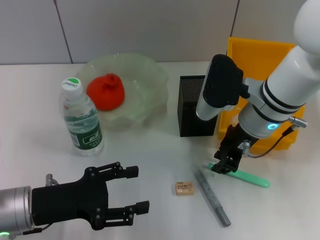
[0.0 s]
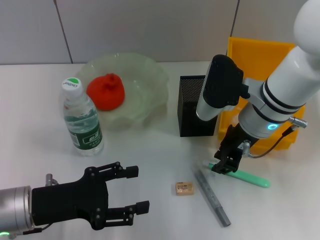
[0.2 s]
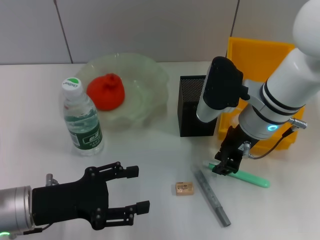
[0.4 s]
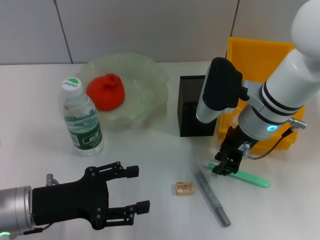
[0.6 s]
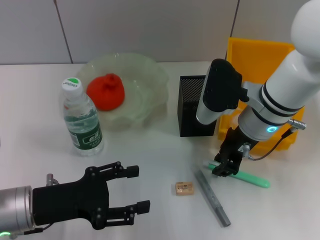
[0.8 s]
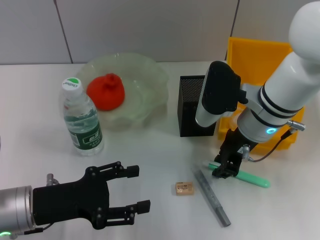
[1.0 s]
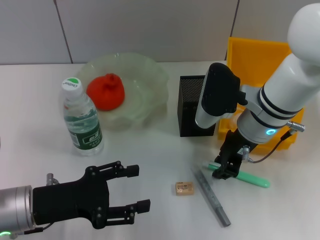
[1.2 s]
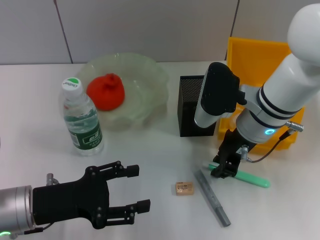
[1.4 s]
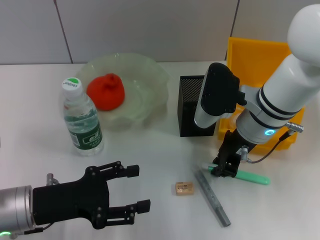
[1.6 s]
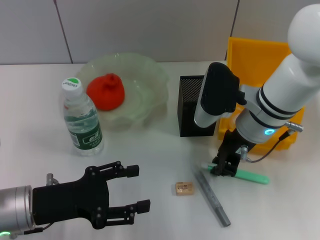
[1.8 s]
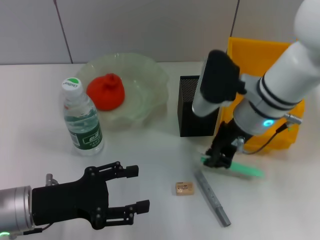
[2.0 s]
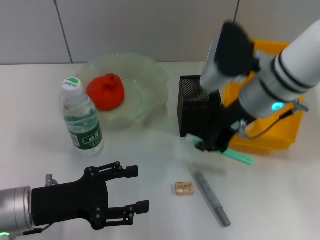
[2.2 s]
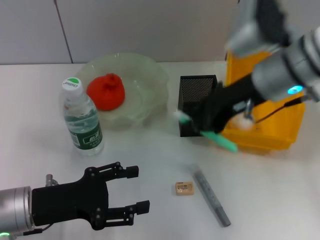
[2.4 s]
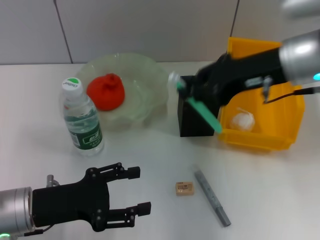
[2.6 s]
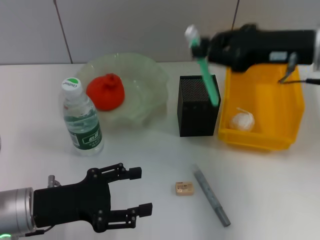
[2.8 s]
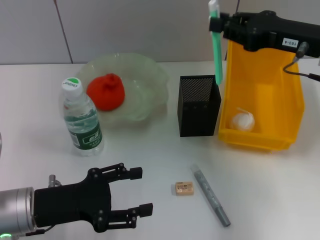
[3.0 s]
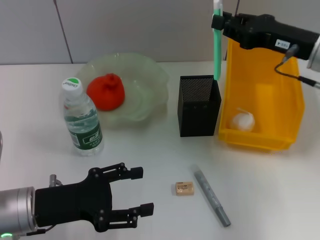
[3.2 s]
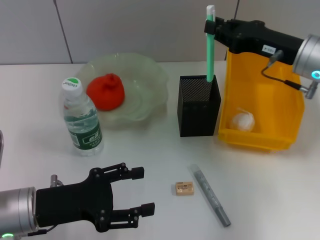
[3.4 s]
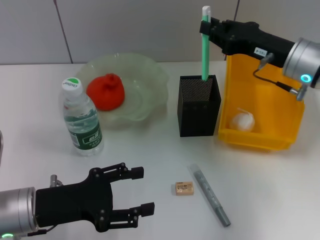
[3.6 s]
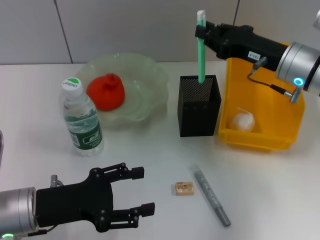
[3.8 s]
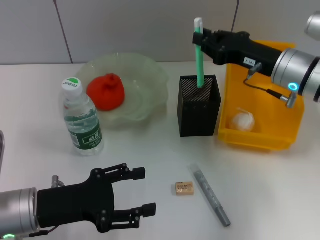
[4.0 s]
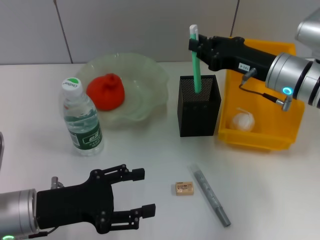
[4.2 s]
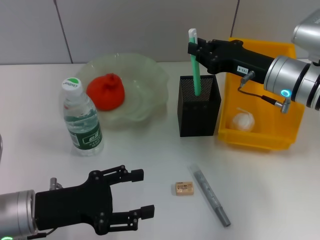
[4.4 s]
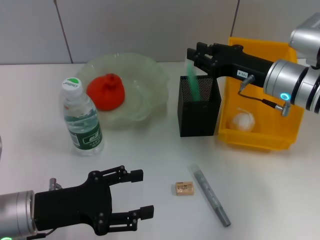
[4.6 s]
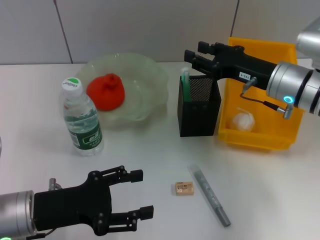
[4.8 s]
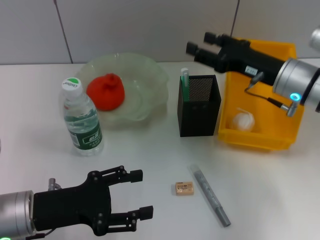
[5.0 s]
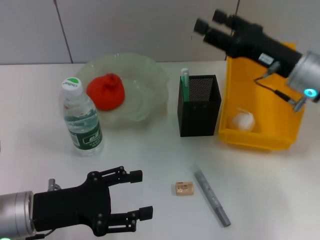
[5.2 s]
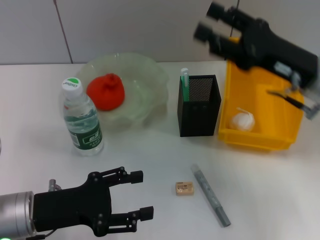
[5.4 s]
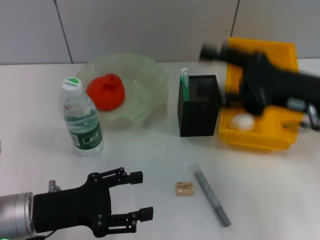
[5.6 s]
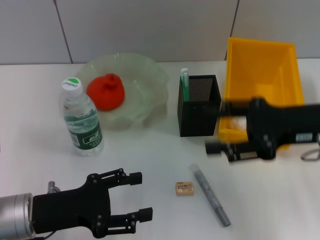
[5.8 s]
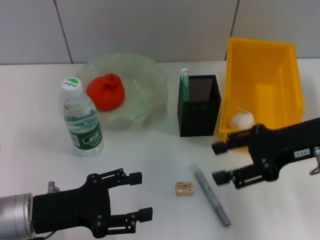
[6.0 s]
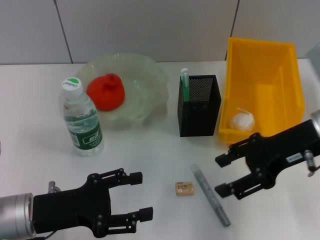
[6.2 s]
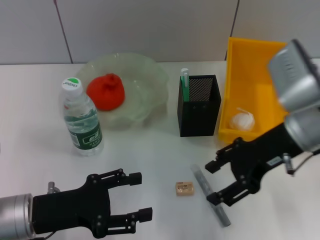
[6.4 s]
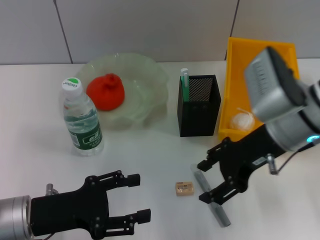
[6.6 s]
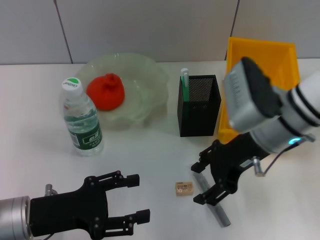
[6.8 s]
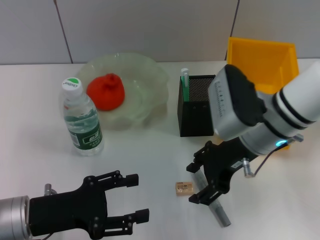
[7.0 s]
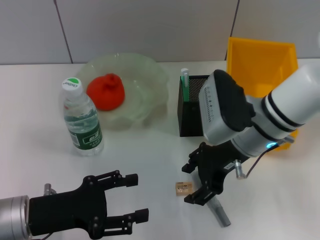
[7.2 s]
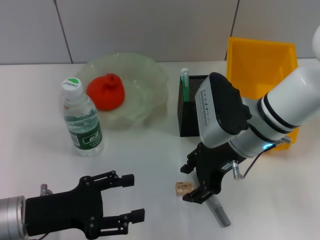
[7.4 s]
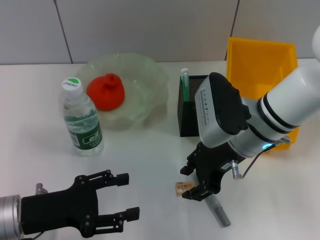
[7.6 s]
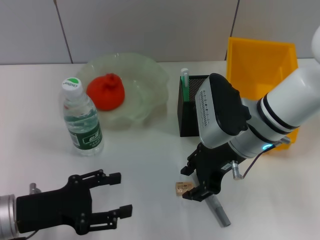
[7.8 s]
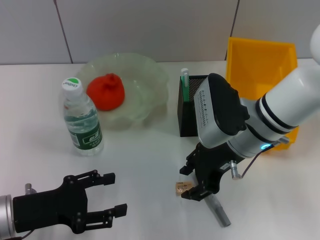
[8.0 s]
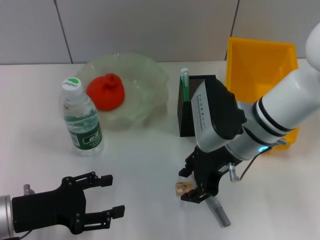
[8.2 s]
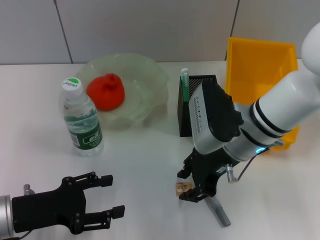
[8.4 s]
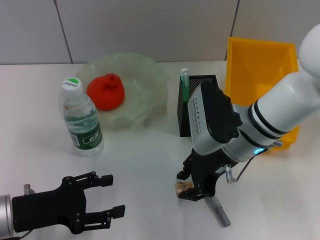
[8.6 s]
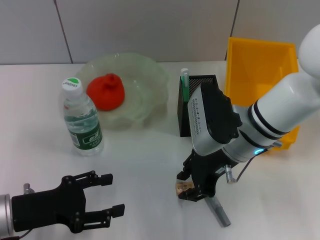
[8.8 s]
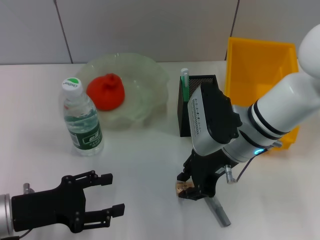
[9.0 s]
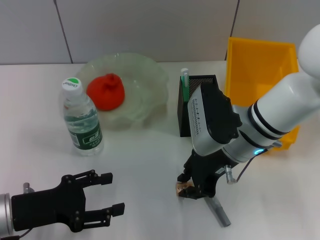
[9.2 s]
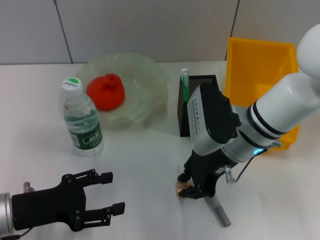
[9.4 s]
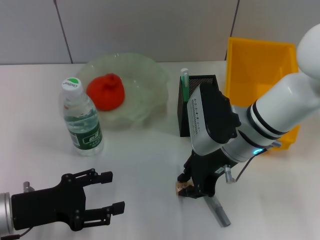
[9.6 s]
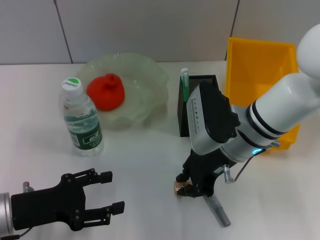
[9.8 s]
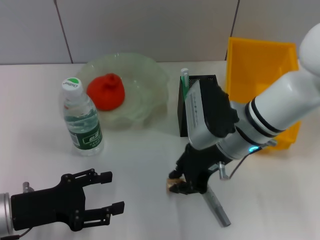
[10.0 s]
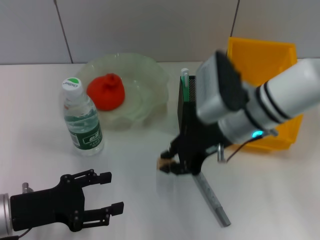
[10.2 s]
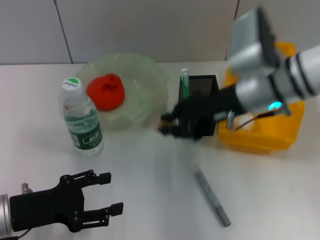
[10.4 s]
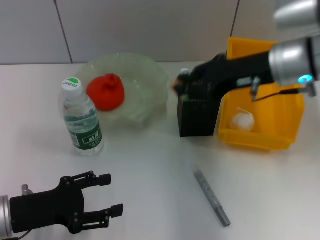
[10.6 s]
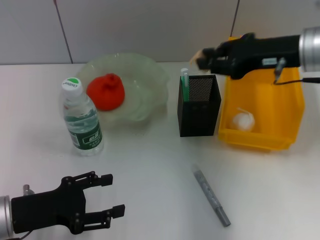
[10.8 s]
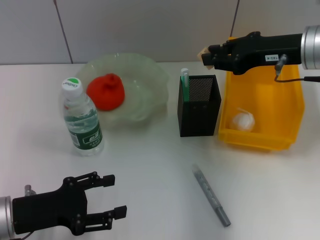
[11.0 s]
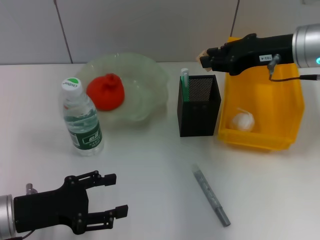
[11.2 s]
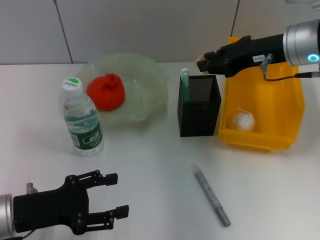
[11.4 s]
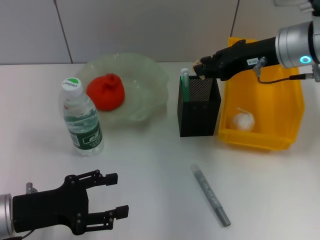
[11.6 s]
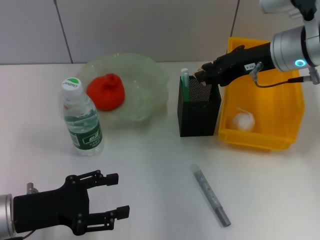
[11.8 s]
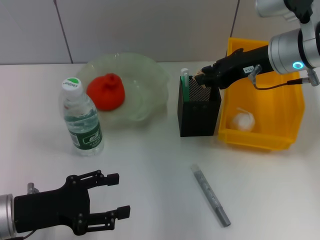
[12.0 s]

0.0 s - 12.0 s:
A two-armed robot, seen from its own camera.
Step, 1.8 s - 4.6 s: Place the blue utility knife into the pen holder with the right hand.
Step, 5.0 s - 9.6 s: Grab the eraser with the right hand.
0.0 s - 1.6 s: Both grippers stay about where they are.
1.6 s - 3.0 s: The right gripper moves to the right and upward, some 15 cm.
3.0 s - 4.4 s: The right gripper moves downward, approximately 10 cm.
4.4 s - 6.0 s: The right gripper heads backward, covering roughly 10 cm, and opens.
6.0 s - 7.6 s: The right gripper is displaced to the left by approximately 10 cm.
7.6 s - 9.0 s: There are only small adjustments of the grippers.
9.0 s - 10.4 s: The right gripper goes approximately 5 cm upward.
10.4 s - 12.0 s: The right gripper ends up roughly 5 cm from where it was.

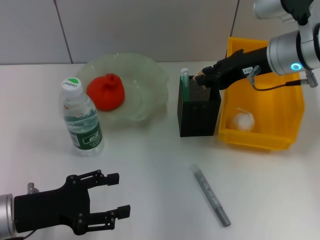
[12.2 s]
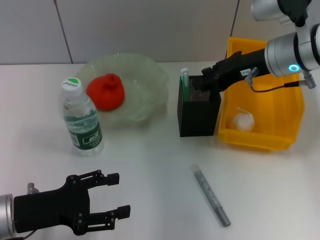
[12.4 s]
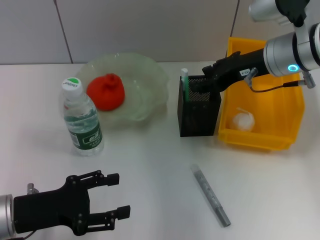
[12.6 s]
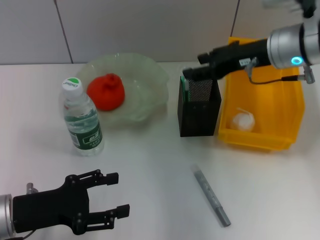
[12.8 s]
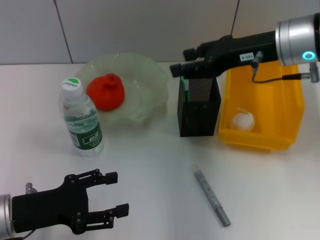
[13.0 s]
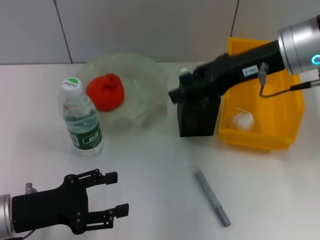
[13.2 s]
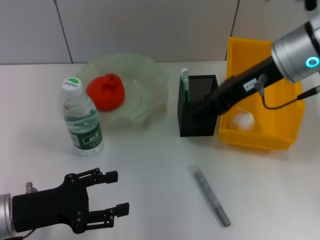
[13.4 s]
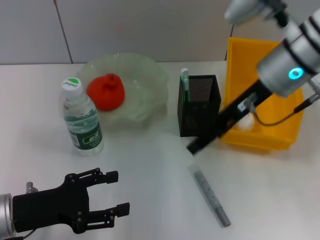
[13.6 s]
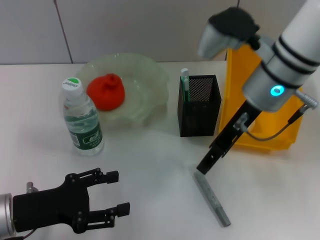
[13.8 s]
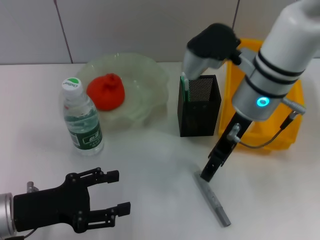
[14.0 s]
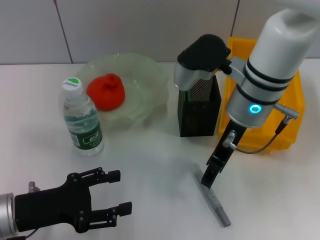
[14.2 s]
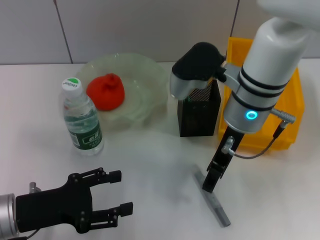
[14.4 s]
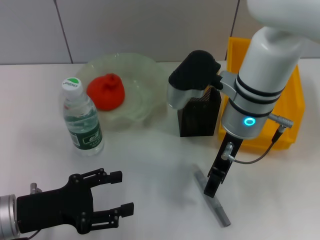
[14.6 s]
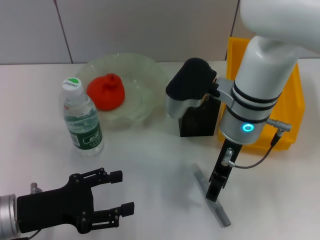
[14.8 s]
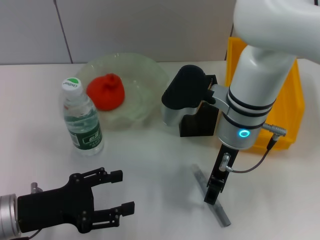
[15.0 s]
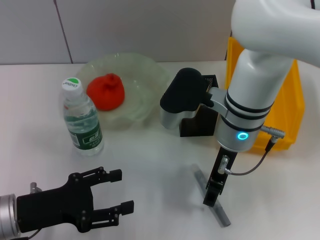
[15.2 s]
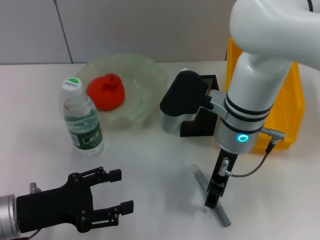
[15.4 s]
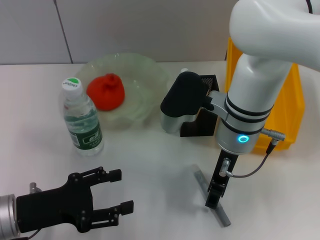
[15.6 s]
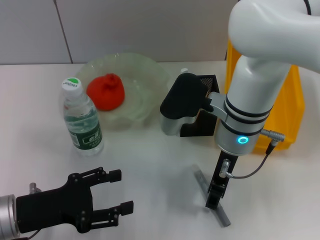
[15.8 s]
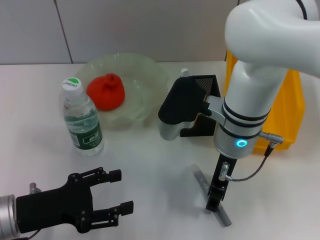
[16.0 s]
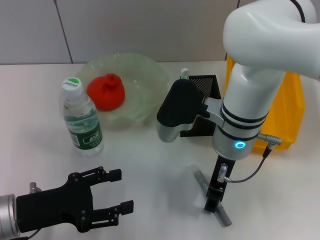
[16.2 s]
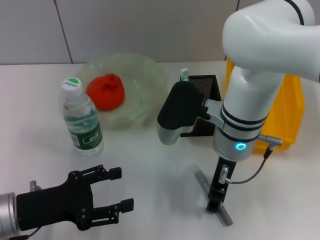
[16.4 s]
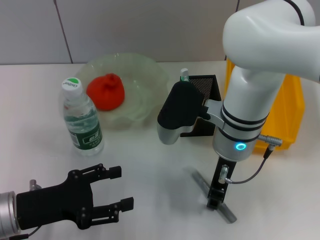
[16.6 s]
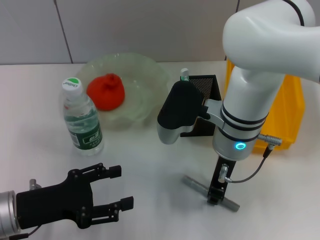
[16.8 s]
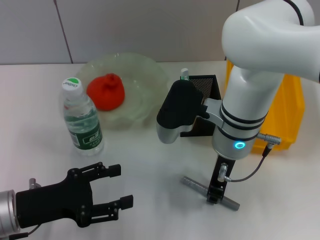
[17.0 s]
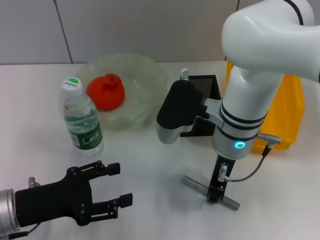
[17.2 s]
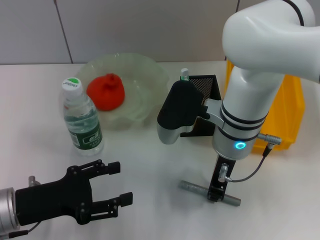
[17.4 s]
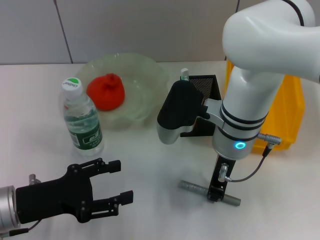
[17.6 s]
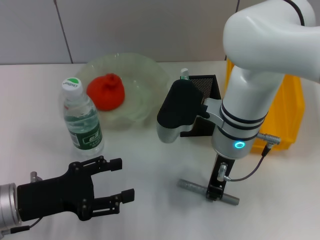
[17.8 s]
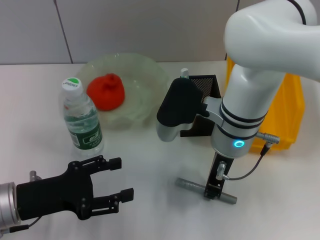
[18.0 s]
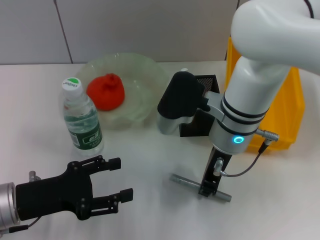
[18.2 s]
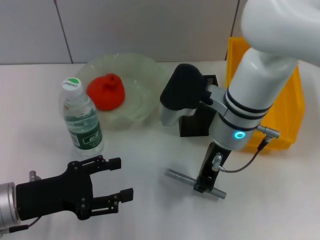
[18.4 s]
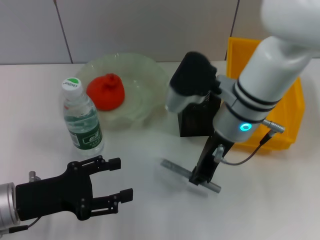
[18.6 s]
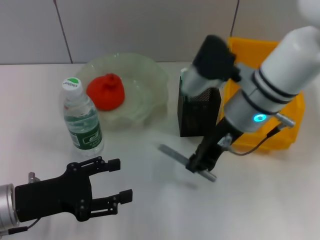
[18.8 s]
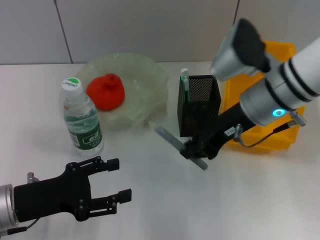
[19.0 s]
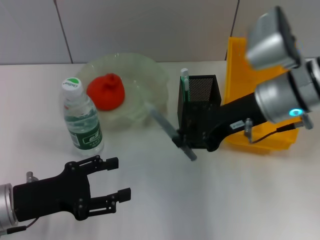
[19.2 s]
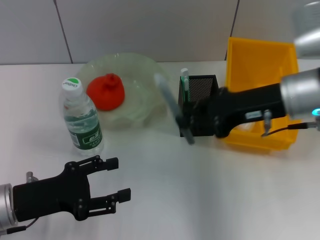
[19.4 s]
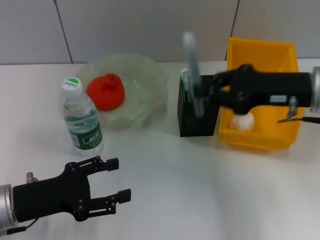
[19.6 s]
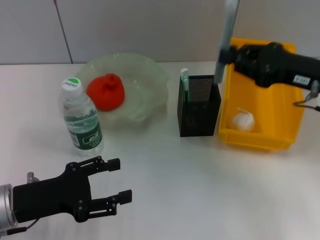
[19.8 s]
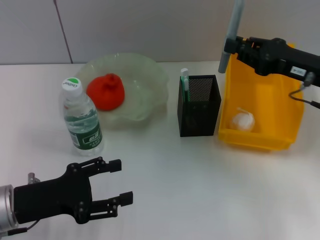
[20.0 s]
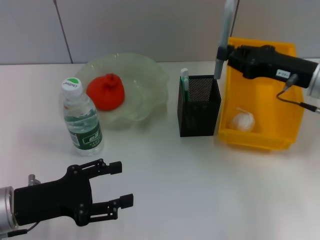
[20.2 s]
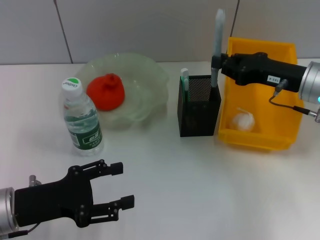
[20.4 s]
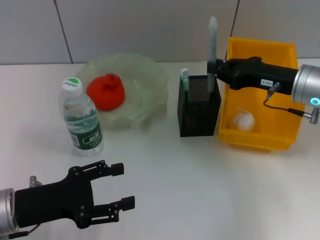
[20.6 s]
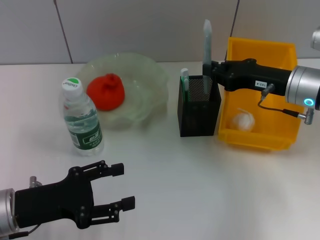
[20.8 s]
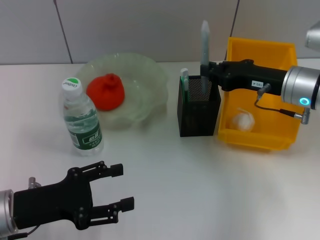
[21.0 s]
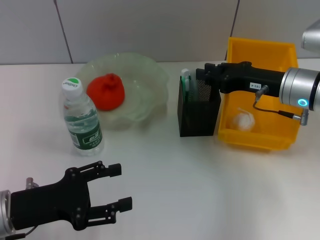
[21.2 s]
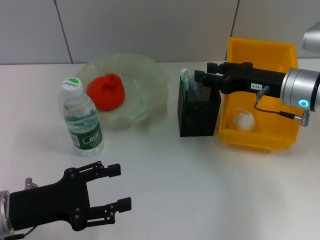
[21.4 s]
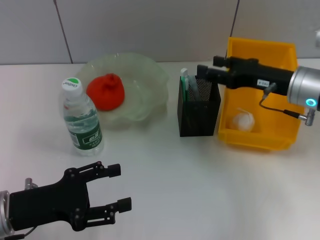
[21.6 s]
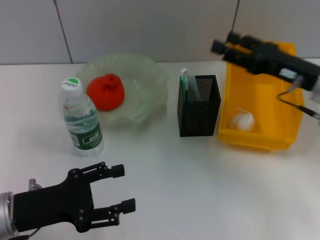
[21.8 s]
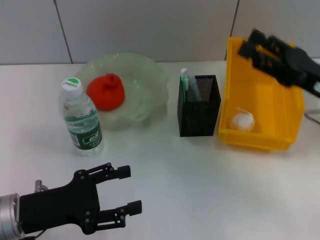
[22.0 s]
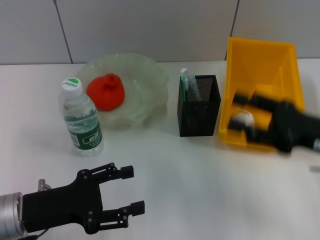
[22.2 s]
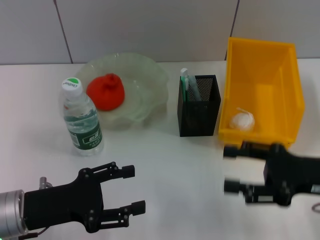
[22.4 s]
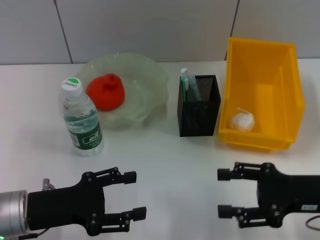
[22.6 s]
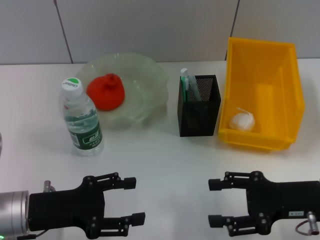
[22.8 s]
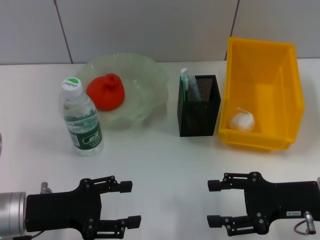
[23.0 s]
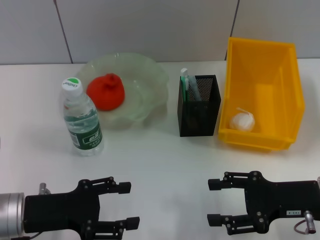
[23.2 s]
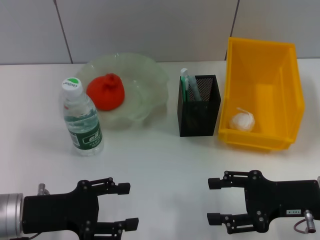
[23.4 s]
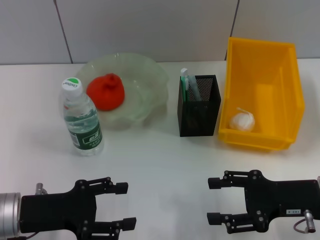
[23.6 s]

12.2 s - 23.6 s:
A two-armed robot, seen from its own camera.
Step, 12.6 s - 17.2 s: Grab the gray glue with the right hand.
Step, 17.6 s - 21.0 s: Place the gray glue into the pen holder with the right hand.
12.2 s - 13.6 s: The right gripper shifts by roughly 5 cm, and opens.
13.6 s - 15.0 s: The right gripper is displaced downward and to the left by roughly 10 cm.
15.0 s - 16.4 s: There are only small adjustments of the grippers.
16.4 s - 17.8 s: The right gripper closes its fingers.
17.8 s - 19.4 s: The right gripper goes roughly 15 cm to the right and upward.
19.4 s - 20.8 s: The right gripper moves downward, approximately 5 cm.
20.8 s - 22.2 s: The right gripper is displaced backward by approximately 10 cm, and opens up.
22.2 s - 23.6 s: The right gripper changes place by roughly 5 cm.
